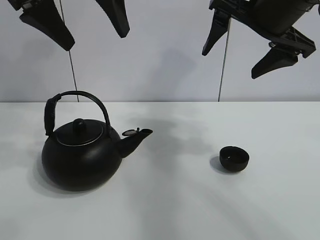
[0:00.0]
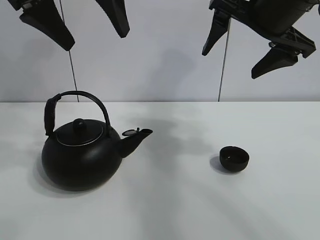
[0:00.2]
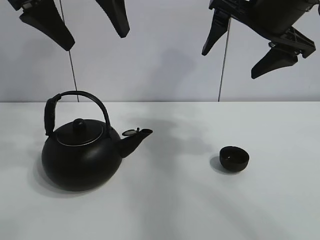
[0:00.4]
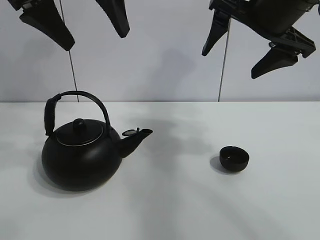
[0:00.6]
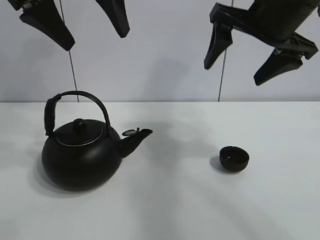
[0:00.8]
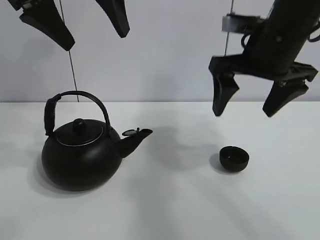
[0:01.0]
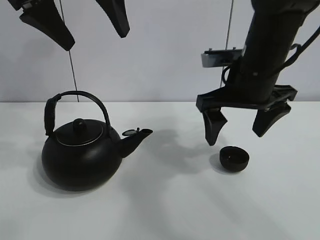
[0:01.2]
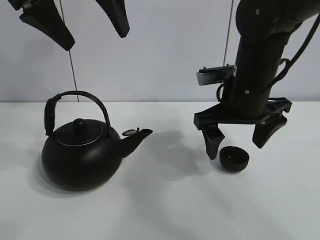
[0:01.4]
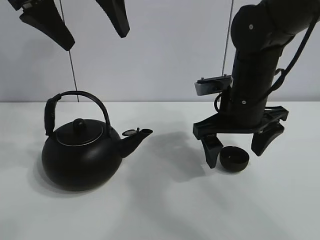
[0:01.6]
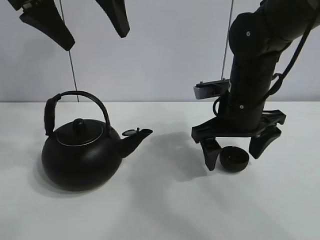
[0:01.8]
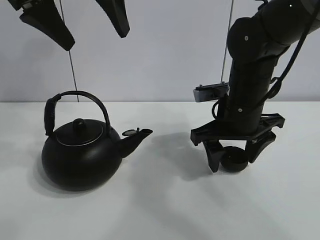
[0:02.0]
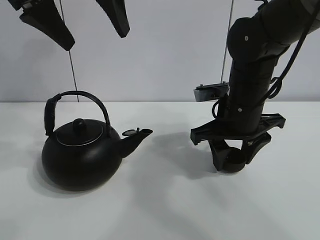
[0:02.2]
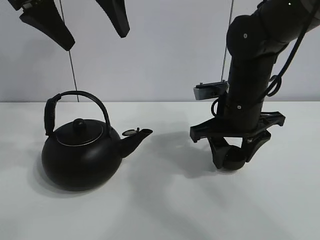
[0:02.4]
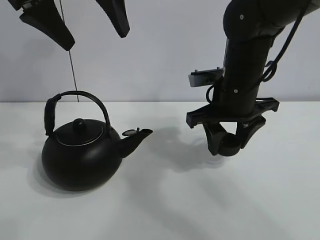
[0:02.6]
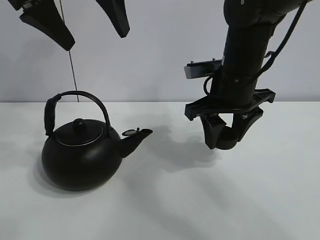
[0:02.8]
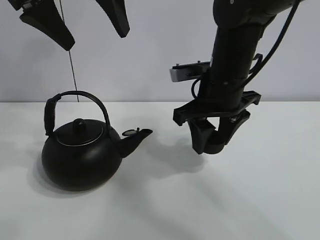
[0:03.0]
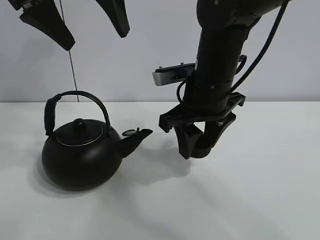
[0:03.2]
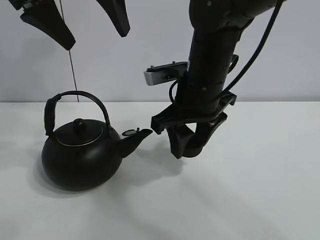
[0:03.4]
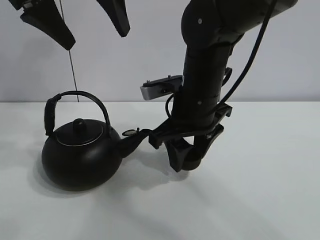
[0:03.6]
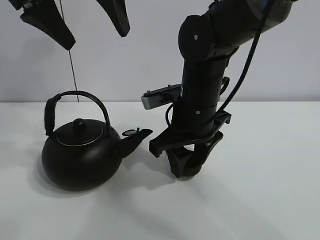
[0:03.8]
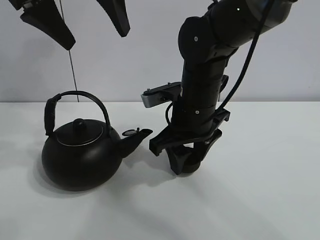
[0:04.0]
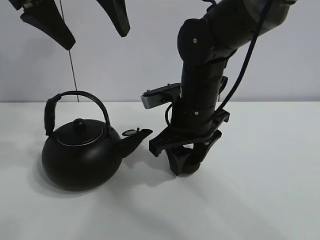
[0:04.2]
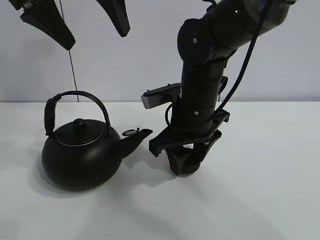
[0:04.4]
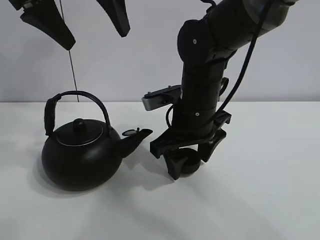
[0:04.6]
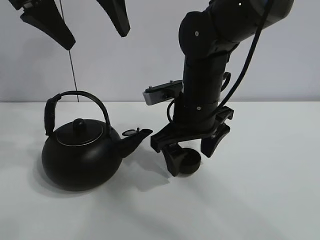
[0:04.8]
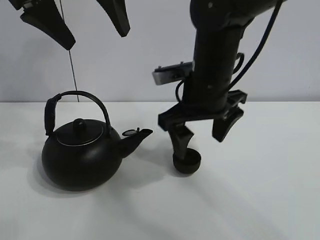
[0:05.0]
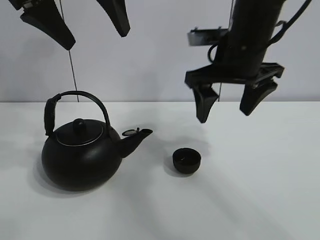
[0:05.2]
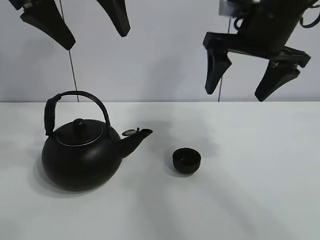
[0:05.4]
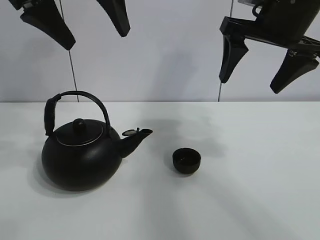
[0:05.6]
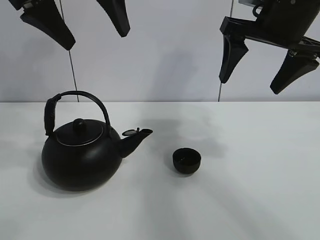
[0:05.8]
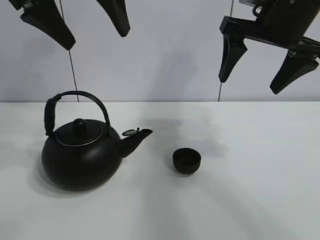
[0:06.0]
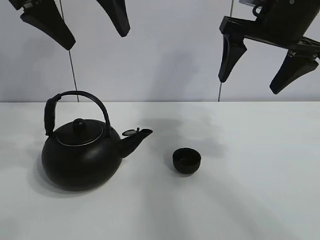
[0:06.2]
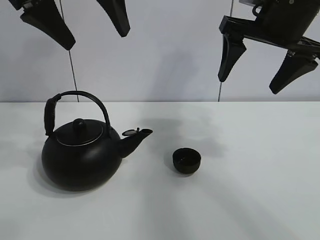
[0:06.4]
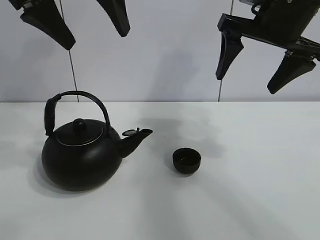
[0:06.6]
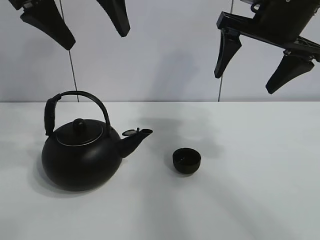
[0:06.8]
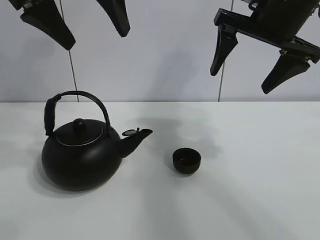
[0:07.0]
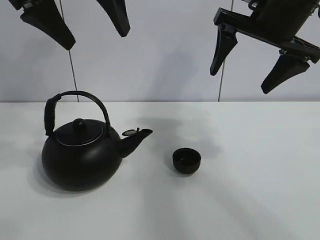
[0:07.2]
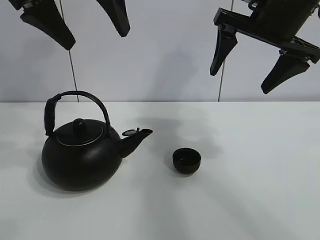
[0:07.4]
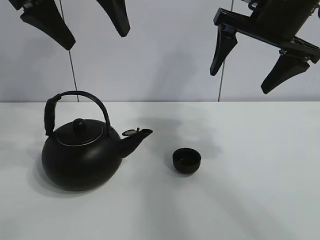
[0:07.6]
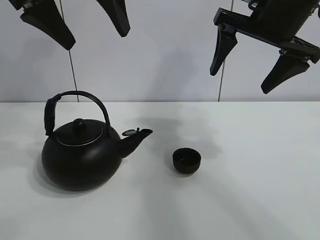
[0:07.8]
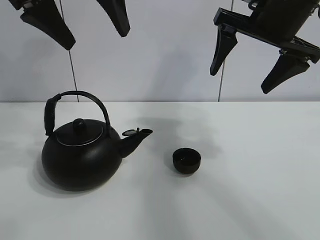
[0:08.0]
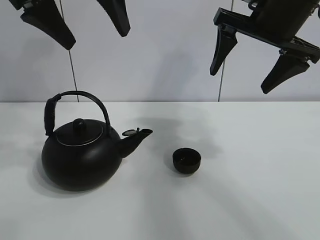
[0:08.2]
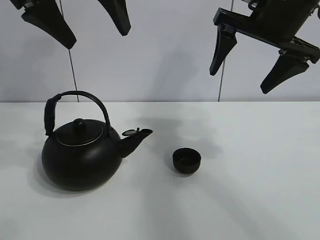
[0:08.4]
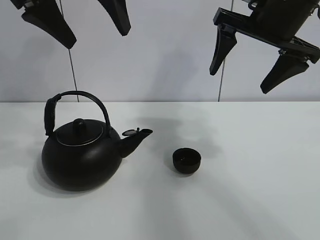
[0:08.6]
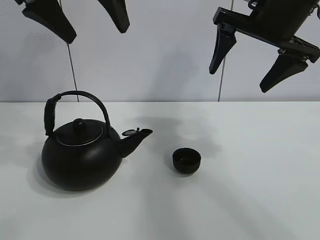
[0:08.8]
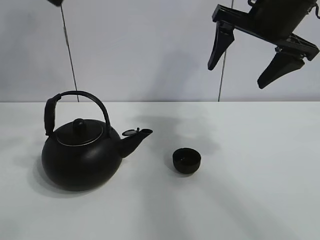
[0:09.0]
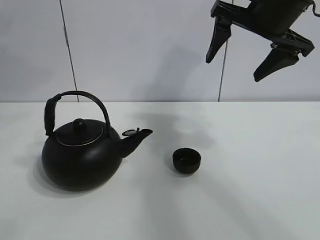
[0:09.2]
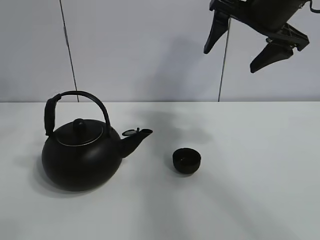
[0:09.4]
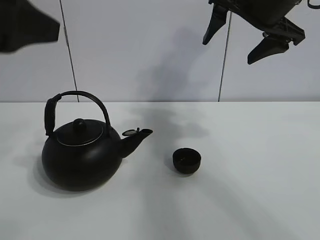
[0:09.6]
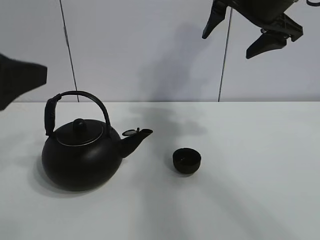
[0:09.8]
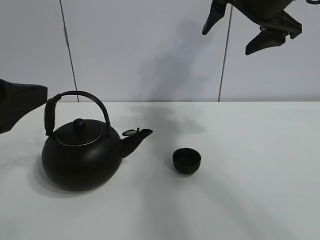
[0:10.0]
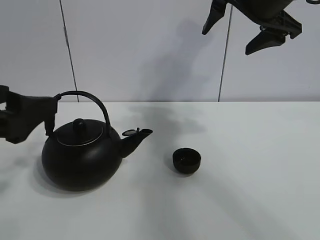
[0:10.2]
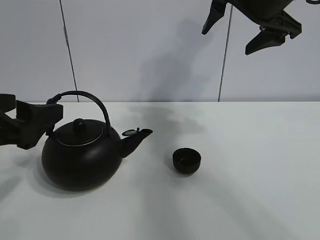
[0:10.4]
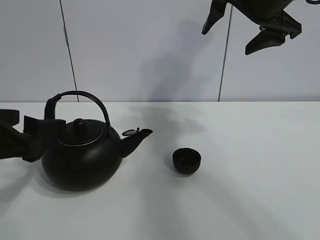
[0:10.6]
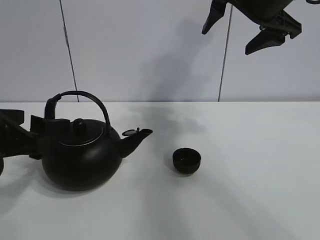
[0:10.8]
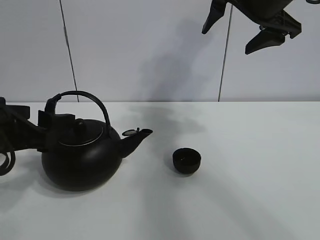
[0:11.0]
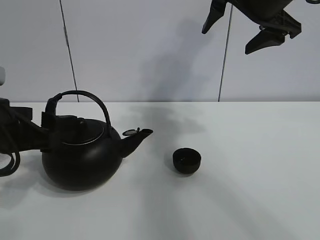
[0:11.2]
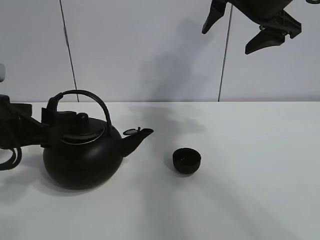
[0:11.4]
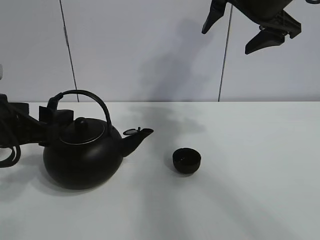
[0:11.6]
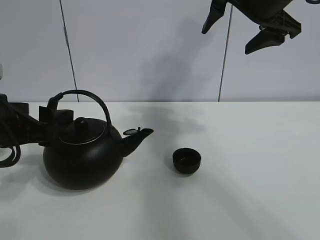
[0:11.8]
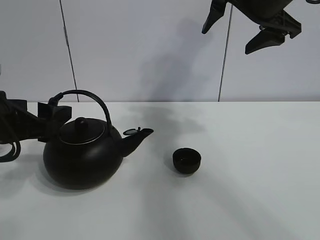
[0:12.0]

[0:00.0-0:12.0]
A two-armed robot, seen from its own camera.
Task of the whole recording: pour tea into the teacup.
Step, 0:00.0 to 0:02.2: Pick up the teacup with the right gripper.
Step, 0:02.4 to 0:04.6: Place the teacup in the center of view with the right gripper.
0:01.6 to 0:03.0: The right gripper closes.
0:03.0 to 0:04.4: The right gripper moves approximately 5 cm.
0:04.4 to 0:06.0: The right gripper moves upward and to the right, approximately 20 cm, and opens.
0:06.0 to 0:09.0: The grippers stay close to where they were, moving slightly.
0:09.0 to 0:10.4: The left gripper shifts approximately 25 cm downward and backward.
0:10.4 to 0:12.0: The left gripper shifts by some 5 cm.

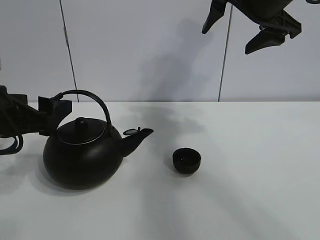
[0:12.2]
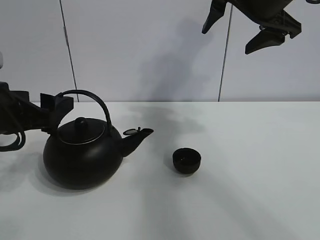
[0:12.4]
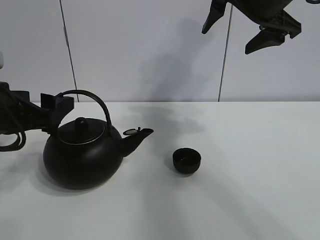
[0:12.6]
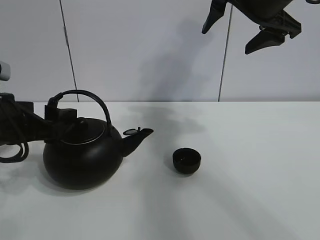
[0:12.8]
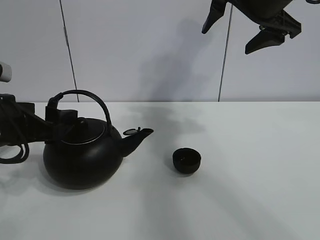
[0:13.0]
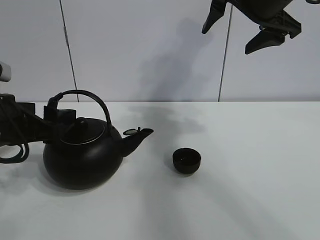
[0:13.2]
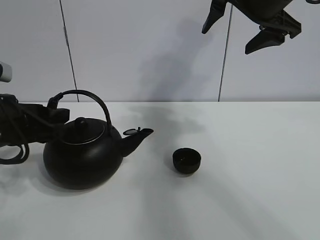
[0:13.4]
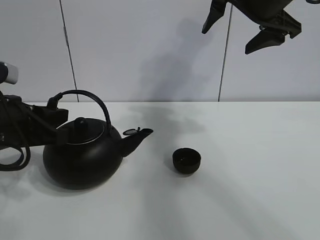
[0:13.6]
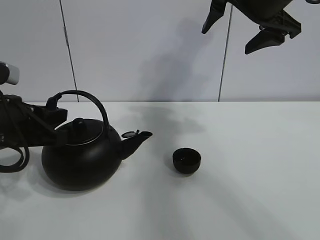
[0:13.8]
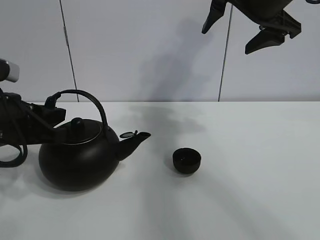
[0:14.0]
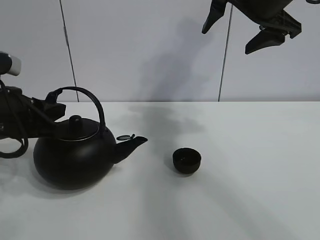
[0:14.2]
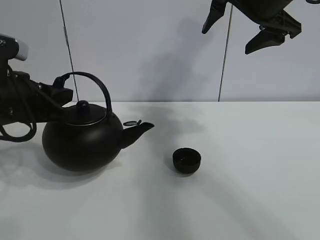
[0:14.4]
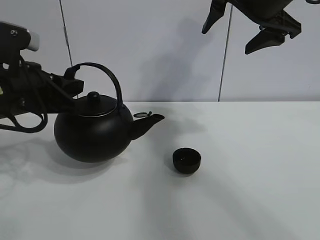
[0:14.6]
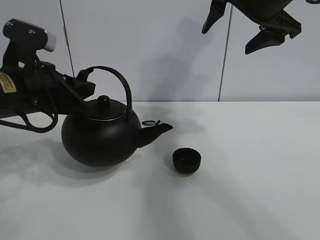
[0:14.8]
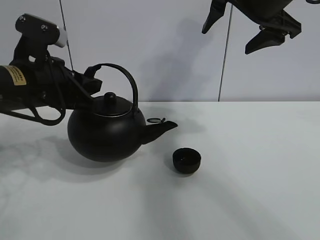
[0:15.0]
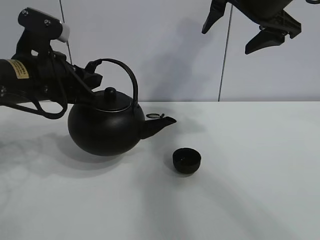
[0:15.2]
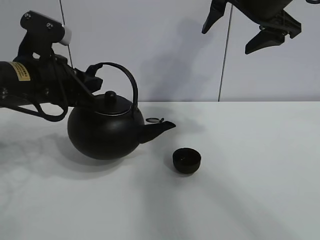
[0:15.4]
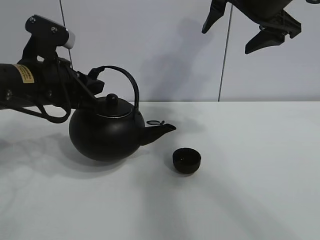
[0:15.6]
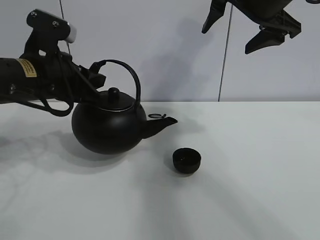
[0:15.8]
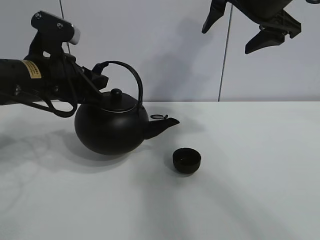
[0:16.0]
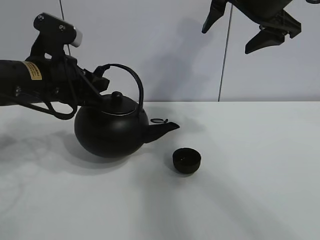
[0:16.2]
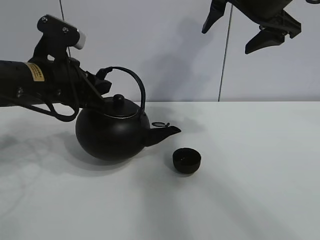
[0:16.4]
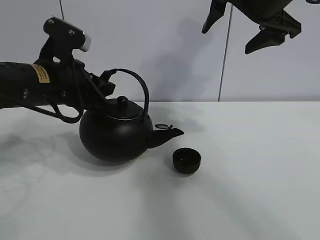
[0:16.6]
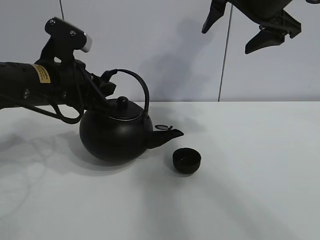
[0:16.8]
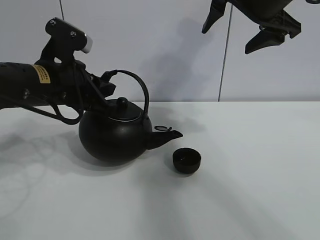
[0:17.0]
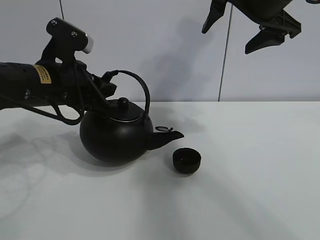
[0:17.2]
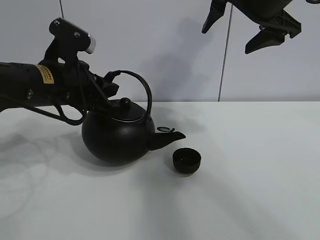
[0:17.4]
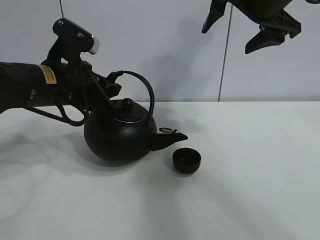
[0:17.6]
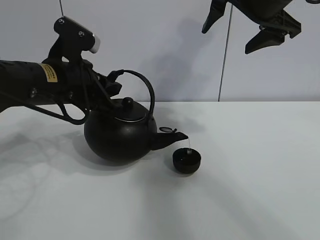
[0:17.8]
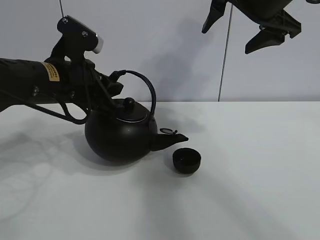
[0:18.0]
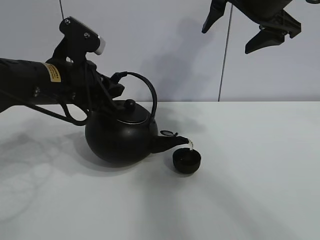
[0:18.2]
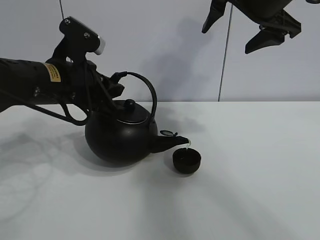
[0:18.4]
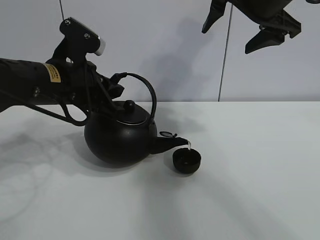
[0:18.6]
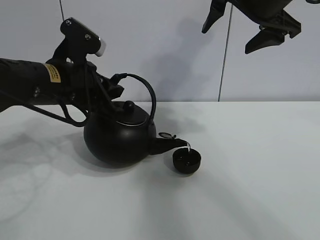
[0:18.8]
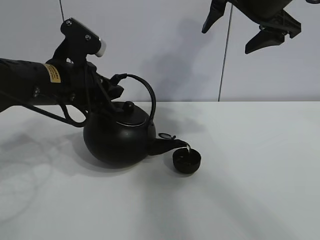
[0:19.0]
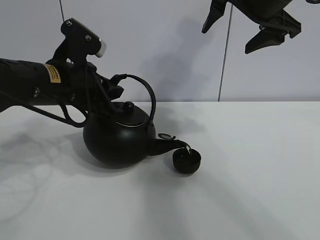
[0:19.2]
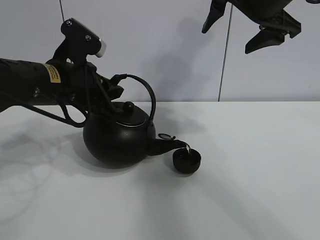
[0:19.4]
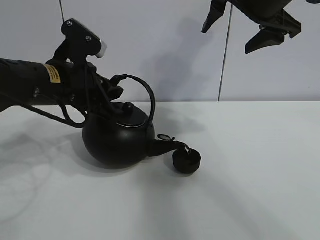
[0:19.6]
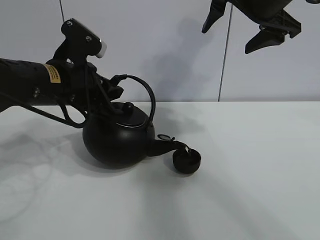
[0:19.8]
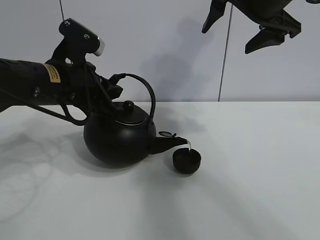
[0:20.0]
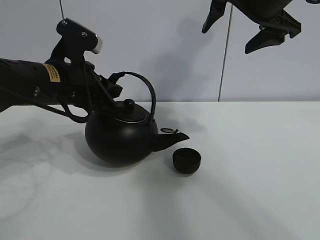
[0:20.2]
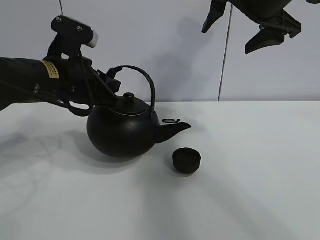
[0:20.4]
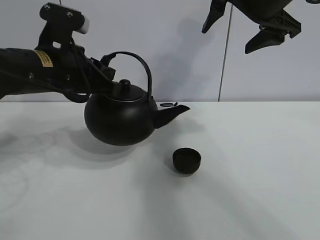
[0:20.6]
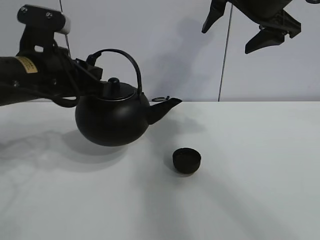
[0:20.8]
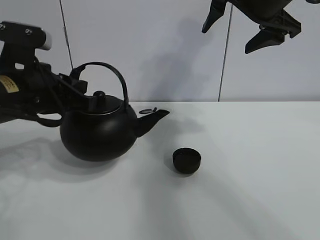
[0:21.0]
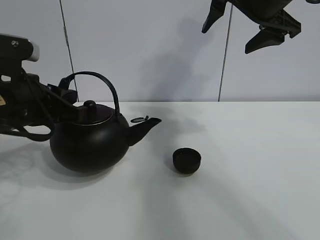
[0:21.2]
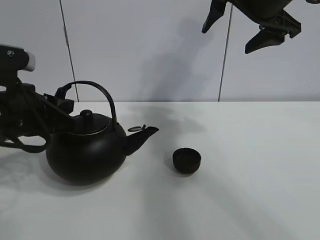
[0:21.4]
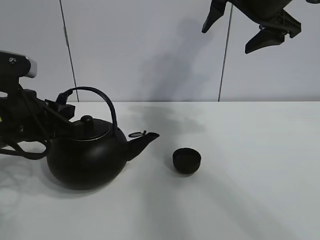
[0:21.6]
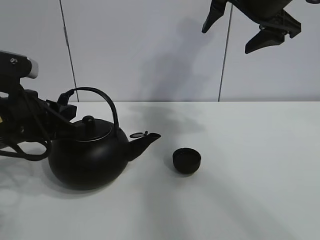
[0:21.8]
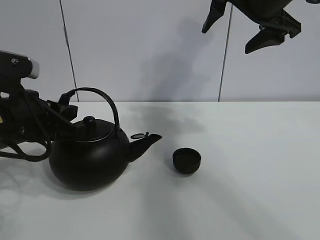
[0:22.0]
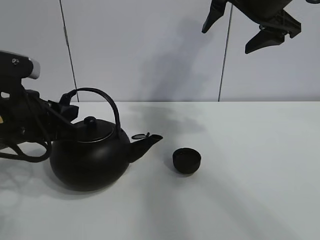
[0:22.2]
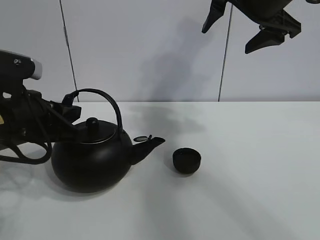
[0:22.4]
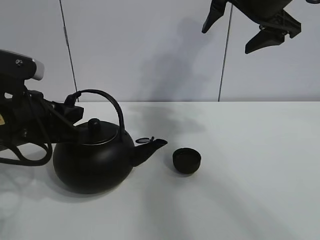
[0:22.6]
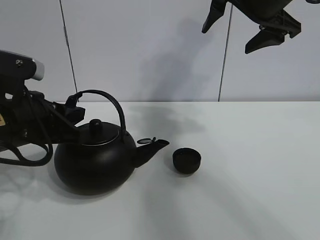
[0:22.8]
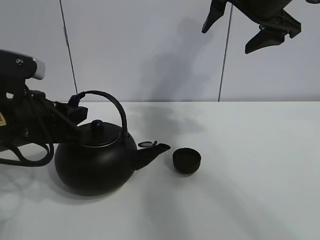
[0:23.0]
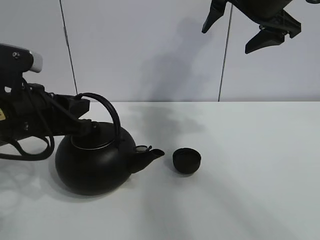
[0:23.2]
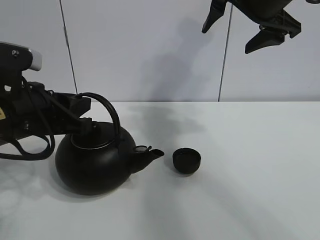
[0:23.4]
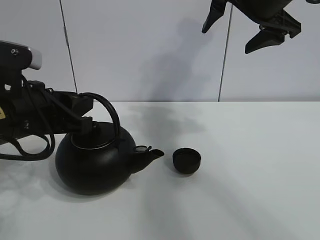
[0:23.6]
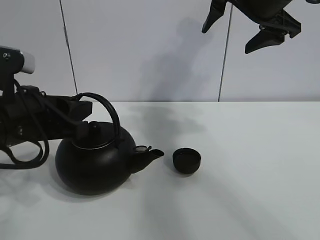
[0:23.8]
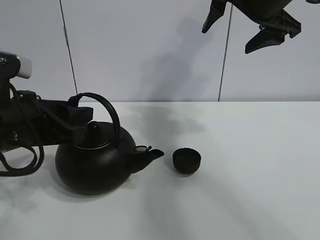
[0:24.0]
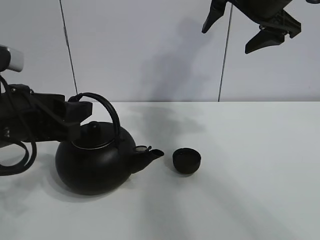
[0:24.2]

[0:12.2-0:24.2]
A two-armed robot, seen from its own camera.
Task of the whole recording: pour tea into the teacup.
Step, 0:14.0 to 0:20.0: Pour tea into the teacup with the left gripper.
0:12.2 to 0:13.8: The left gripper closes its fingers.
0:13.8 to 0:15.2: The left gripper travels upward by roughly 5 cm.
0:15.2 to 0:18.2: There are only small adjustments of the grippers.
0:18.2 to 0:19.8: Both grippers stay about where they are.
0:19.8 to 0:21.2: The left gripper goes some 5 cm backward and to the left.
0:21.2 to 0:22.6: There are only small adjustments of the grippers.
0:22.6 to 0:24.2: The left gripper opens up.
